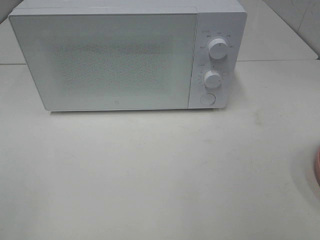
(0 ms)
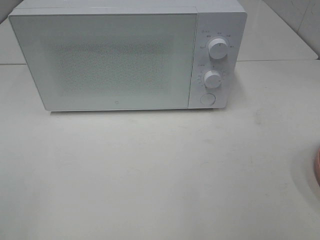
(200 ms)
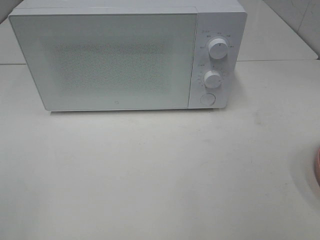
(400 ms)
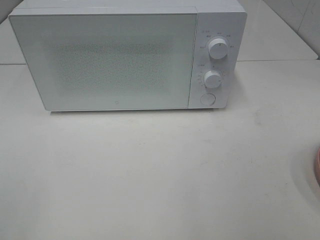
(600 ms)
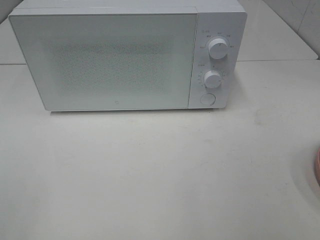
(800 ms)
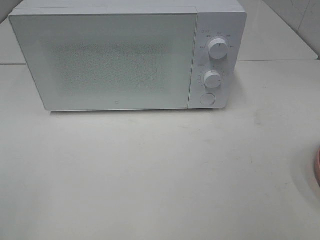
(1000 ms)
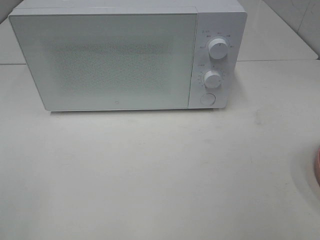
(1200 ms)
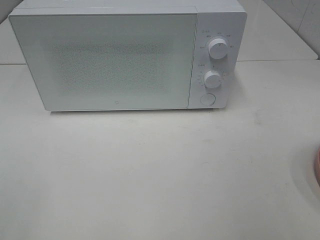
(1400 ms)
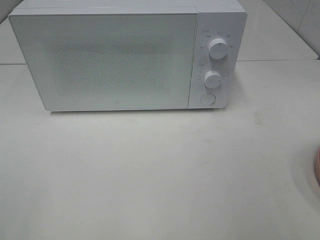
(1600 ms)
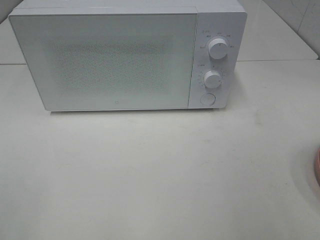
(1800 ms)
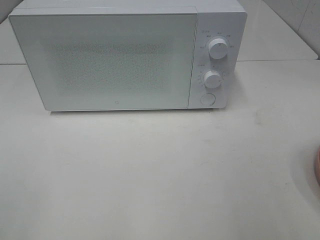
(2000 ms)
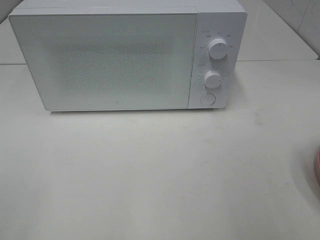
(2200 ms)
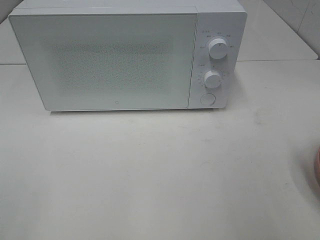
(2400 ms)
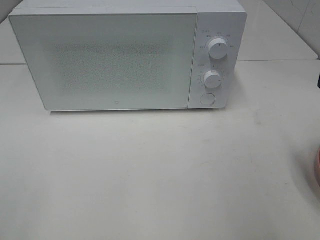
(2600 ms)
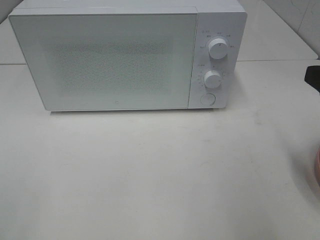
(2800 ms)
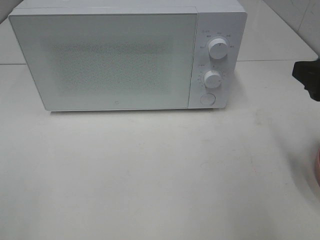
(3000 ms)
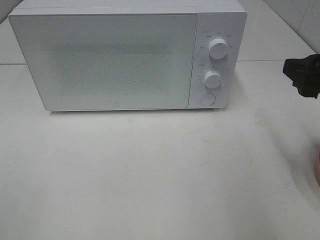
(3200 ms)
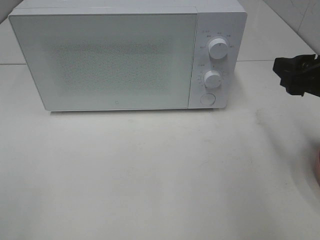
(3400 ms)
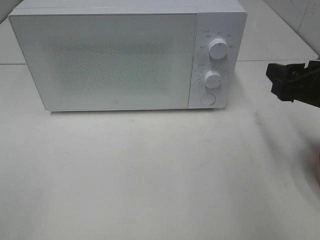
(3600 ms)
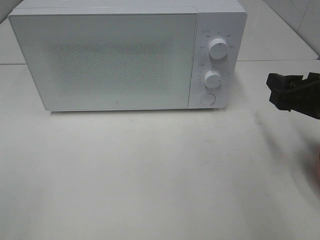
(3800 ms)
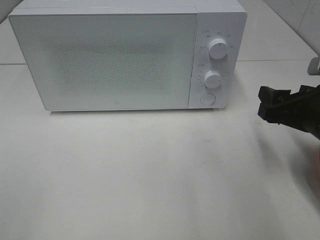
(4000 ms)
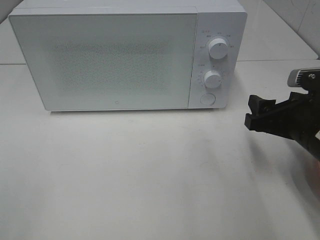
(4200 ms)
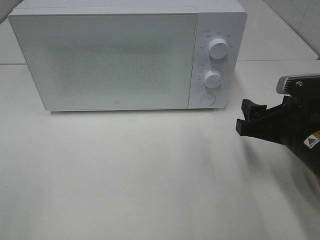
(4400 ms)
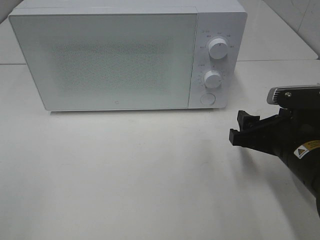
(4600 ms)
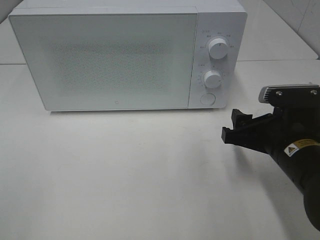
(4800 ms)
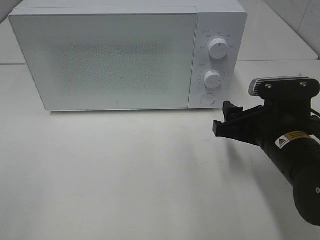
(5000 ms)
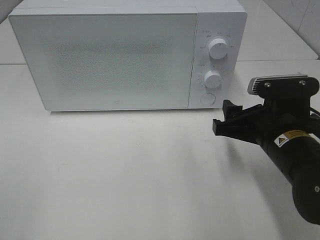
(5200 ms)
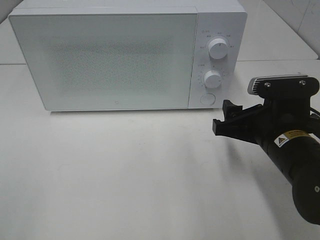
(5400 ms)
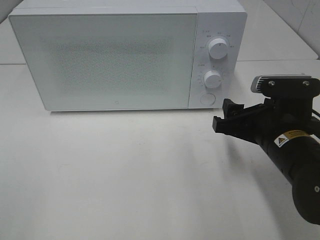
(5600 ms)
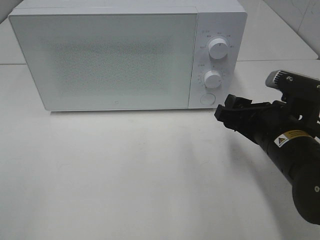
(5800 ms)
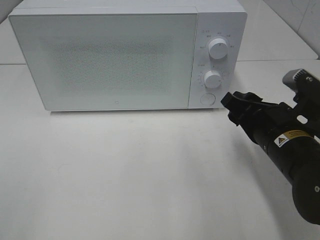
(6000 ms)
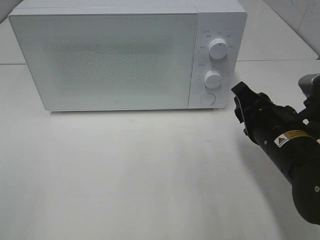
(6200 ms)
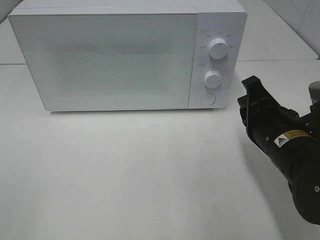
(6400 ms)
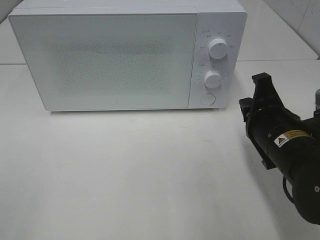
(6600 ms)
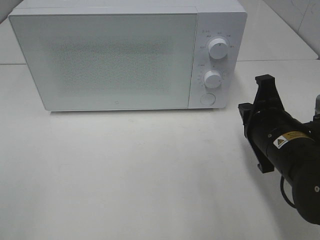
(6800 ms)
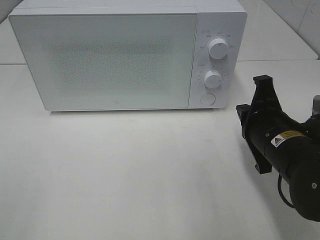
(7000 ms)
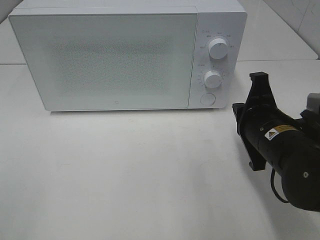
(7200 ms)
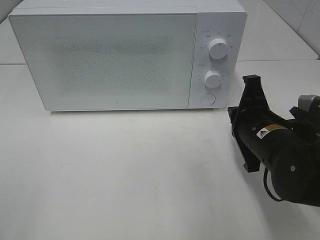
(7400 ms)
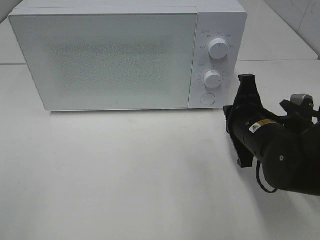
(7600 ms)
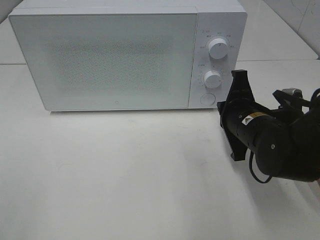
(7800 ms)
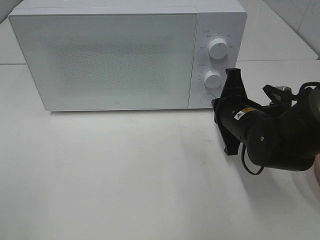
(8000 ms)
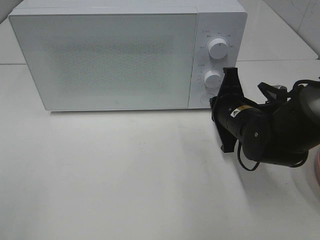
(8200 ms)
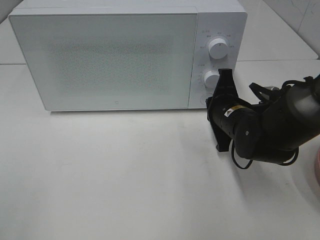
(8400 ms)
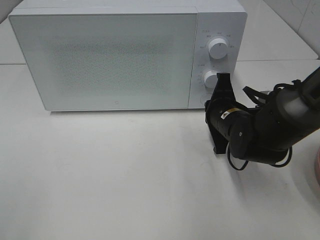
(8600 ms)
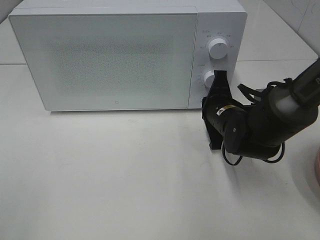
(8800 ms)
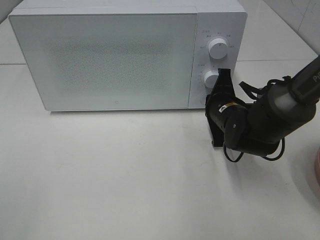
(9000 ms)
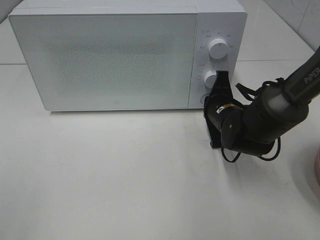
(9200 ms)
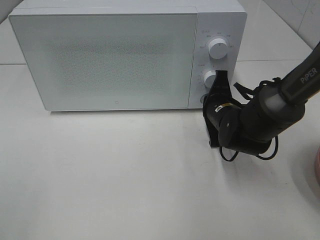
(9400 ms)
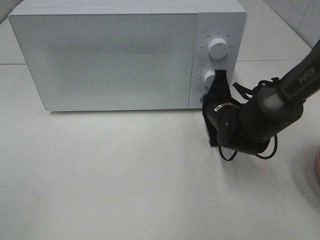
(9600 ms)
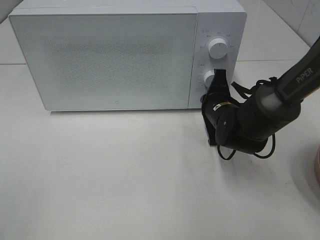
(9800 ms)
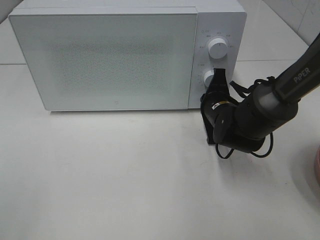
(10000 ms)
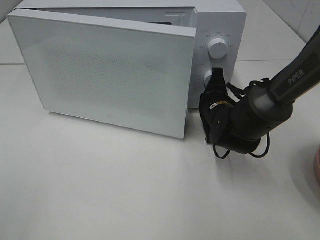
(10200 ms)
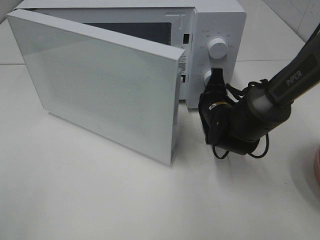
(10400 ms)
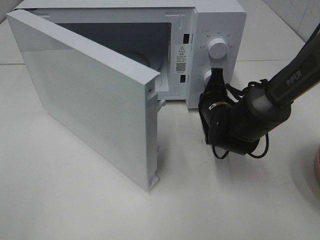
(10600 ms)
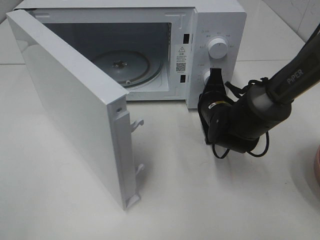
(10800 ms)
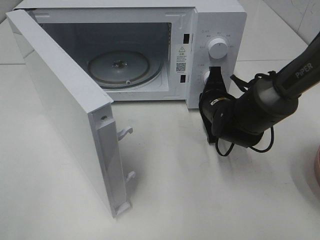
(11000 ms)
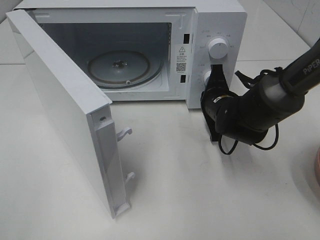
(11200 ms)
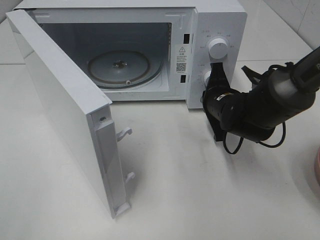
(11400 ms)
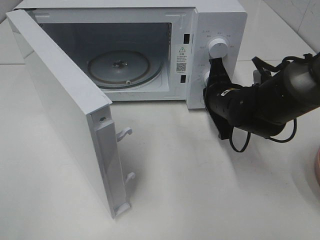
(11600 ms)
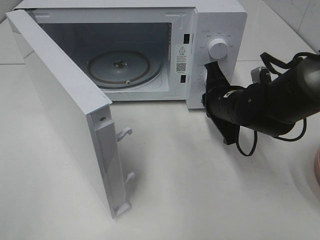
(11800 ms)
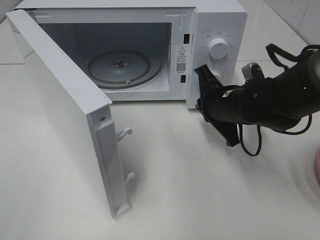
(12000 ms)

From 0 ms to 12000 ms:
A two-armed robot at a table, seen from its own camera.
Task of the whole recording: Heat the burger.
Step, from 0 ms to 11800 ms: Right hand: press the switch.
From 1600 ms to 3000 ms: The right gripper shifts some 15 cm forward.
From 3000 ms to 4400 ms: The right gripper heads downward, covering about 10 cm.
From 6000 ms to 7600 ms: The right gripper closes.
From 7600 ms to 9000 ms: The right gripper shifts roughly 10 cm forward.
From 10400 ms to 12000 ms: The right gripper shifts by roughly 5 cm.

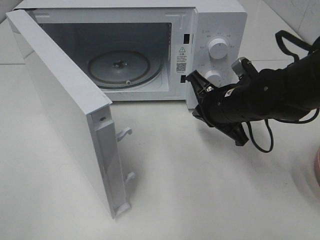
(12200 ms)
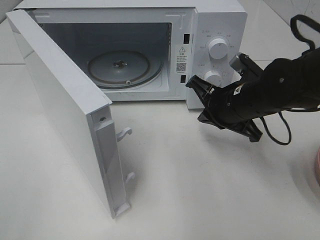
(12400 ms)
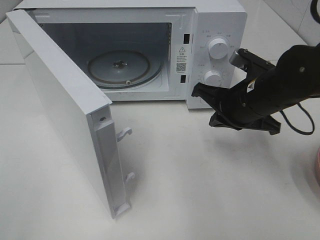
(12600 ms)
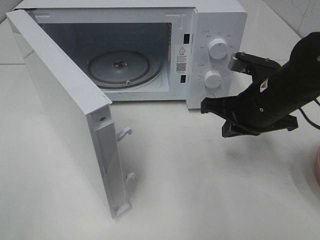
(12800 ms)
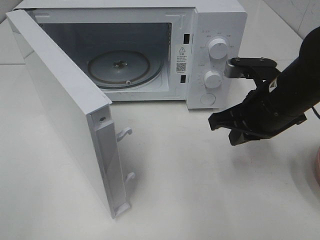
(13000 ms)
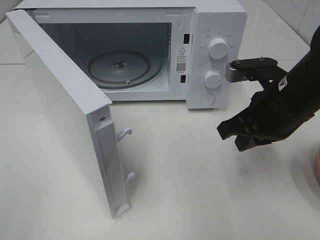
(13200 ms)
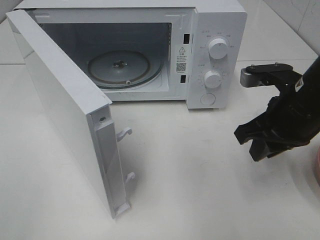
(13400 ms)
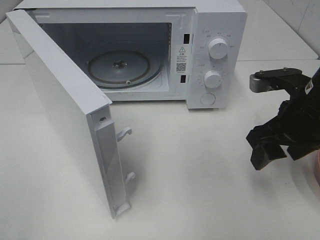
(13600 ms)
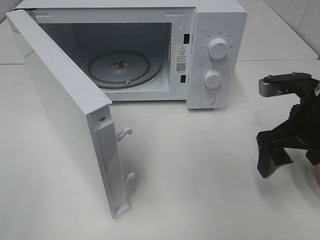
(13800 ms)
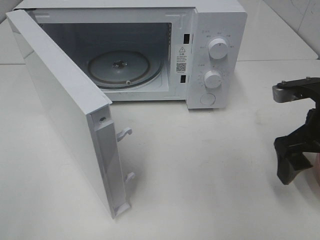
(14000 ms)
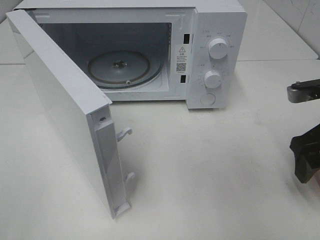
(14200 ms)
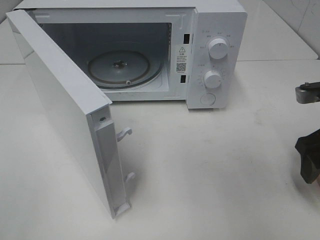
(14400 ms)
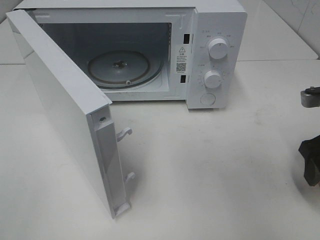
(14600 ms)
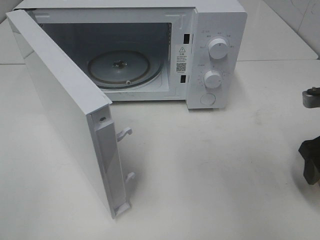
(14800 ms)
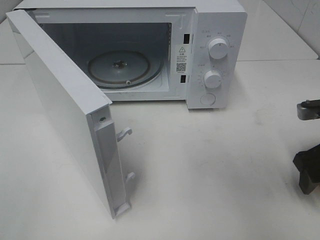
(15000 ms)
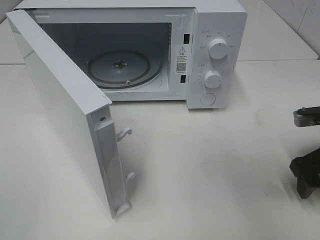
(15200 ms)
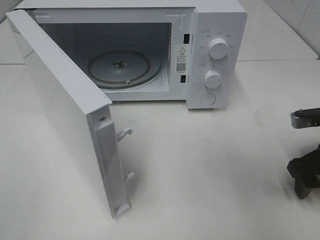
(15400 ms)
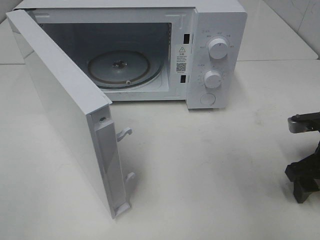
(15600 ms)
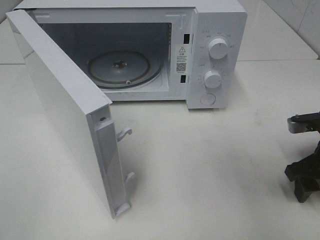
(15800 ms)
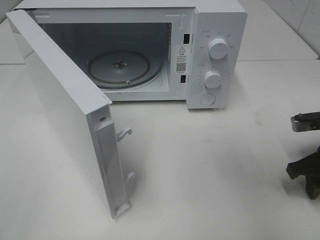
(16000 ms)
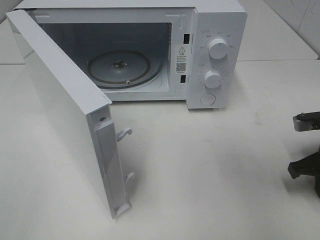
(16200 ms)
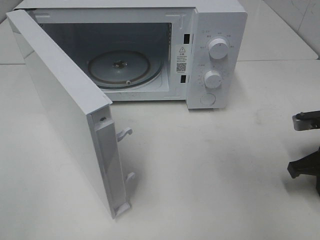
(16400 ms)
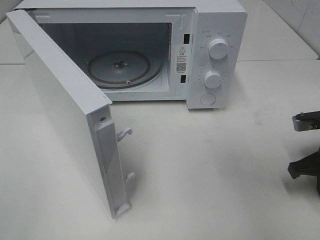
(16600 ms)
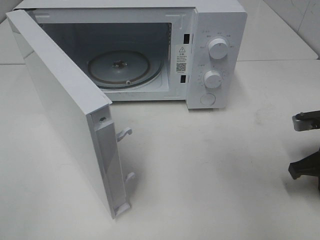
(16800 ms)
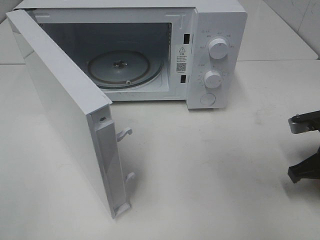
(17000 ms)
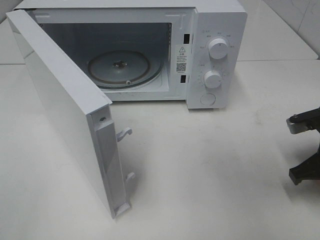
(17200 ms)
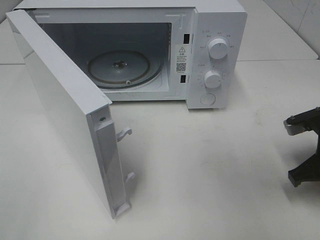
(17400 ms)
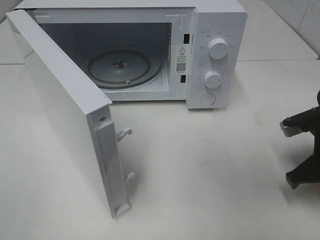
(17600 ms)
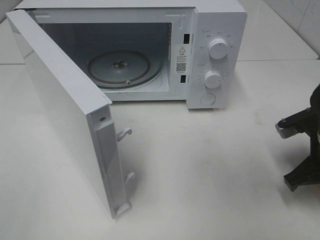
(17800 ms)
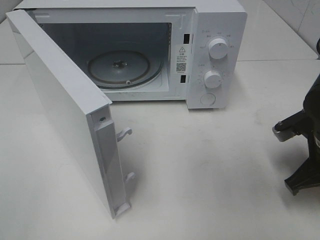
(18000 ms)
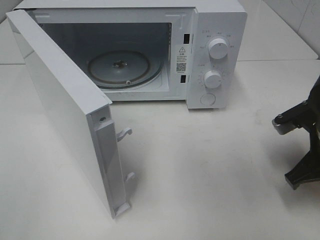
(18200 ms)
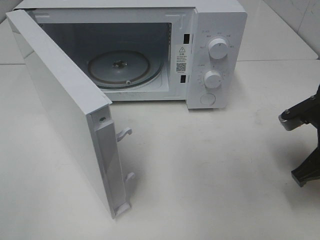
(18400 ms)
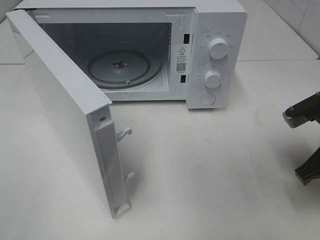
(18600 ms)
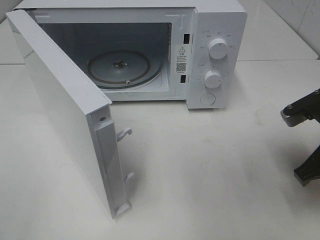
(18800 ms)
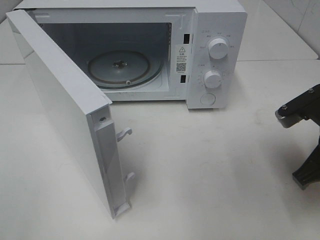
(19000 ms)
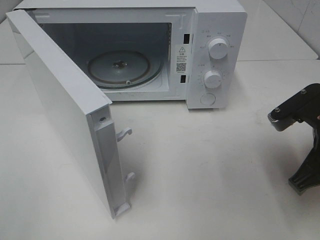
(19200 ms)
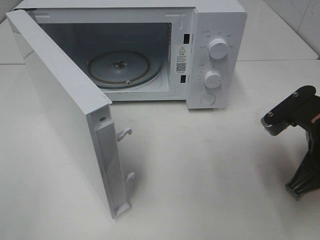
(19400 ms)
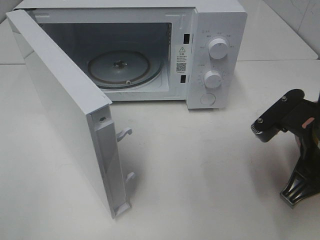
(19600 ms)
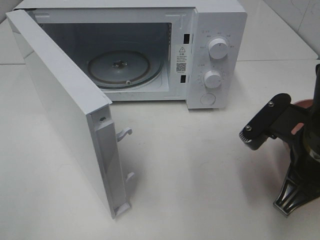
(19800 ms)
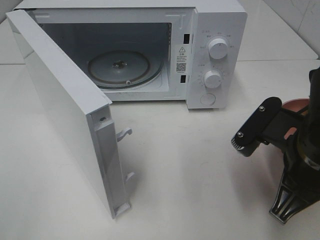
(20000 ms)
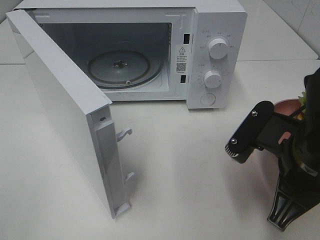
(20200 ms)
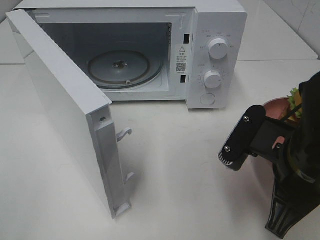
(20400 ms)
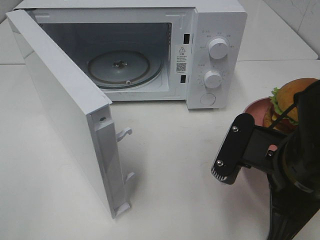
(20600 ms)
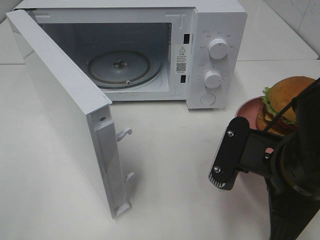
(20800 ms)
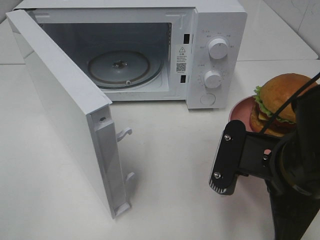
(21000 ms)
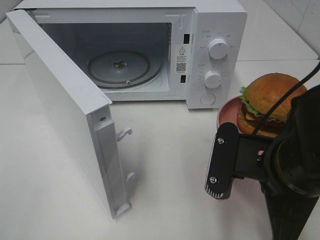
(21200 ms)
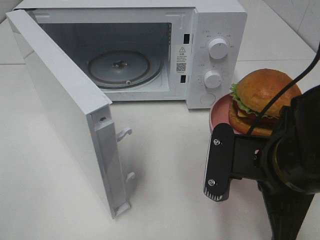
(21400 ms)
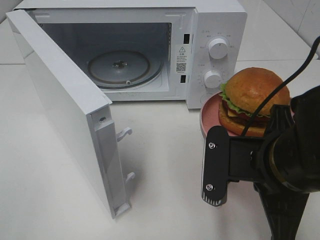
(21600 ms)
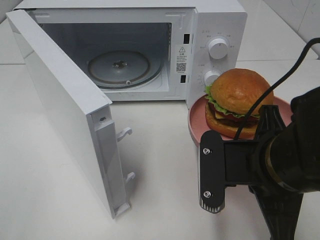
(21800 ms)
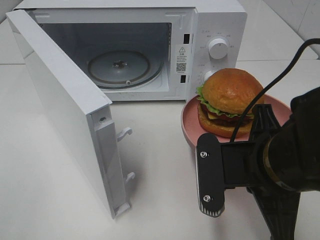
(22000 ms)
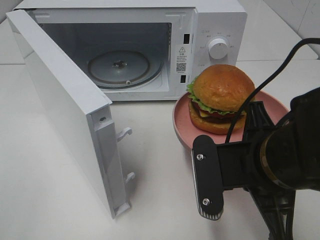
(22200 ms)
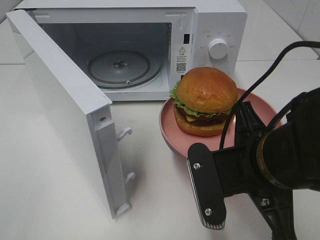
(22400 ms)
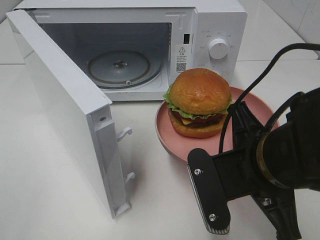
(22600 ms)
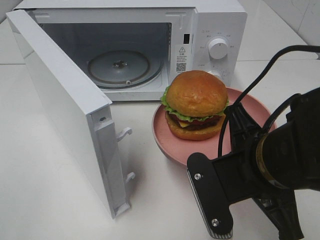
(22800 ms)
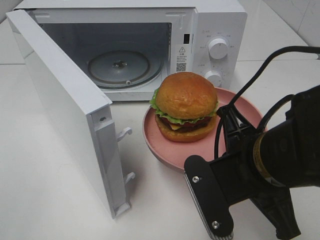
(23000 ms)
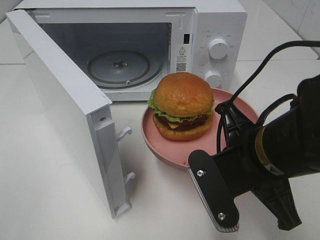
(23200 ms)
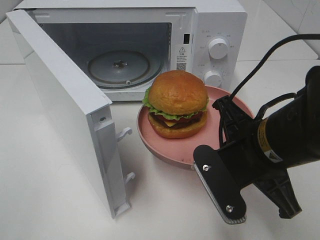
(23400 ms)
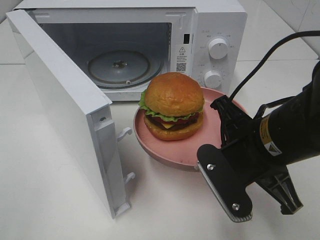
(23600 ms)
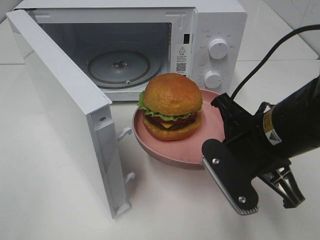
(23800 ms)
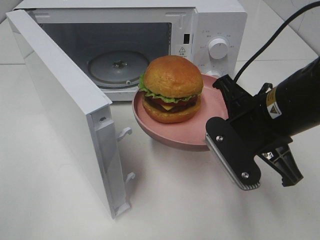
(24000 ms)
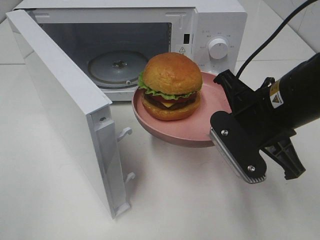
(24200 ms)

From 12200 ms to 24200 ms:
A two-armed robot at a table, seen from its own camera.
Task of the whole recording: Heat the burger.
Step, from 12200 ms to 17200 ms: Right hand: grab the plate with the hamburger.
From 12200 ms to 13800 ms: The right gripper heads to the right, backward and upward, covering about 10 cm, and opens.
From 13800 ms to 15200 ms: The right gripper travels to the right and downward by roughly 10 cm.
From 15200 ms to 16600 ms: The right gripper closes up.
From 16600 ms to 18200 ms: The right gripper goes roughly 5 cm to the left.
From 18200 ms to 19800 ms: The right gripper heads to the left and backward, covering roughly 10 cm.
From 19800 ms to 21200 ms: The right gripper moves approximately 5 cm.
From 22600 ms to 24200 ms: The right gripper moves forward, some 5 cm.
